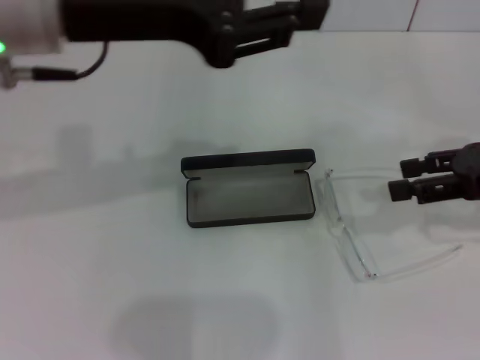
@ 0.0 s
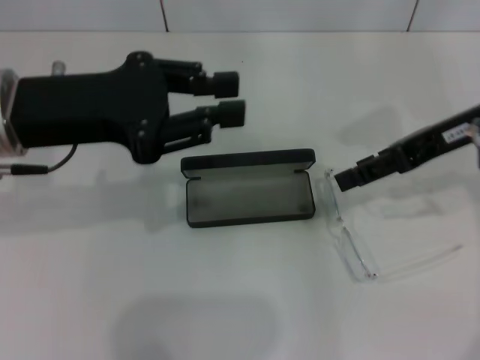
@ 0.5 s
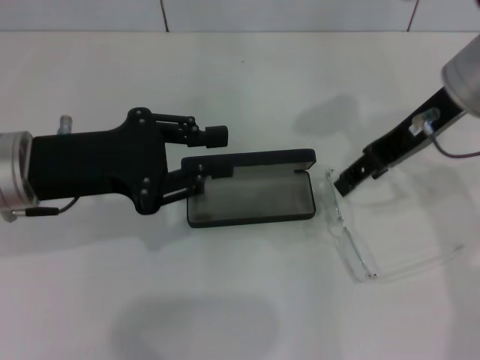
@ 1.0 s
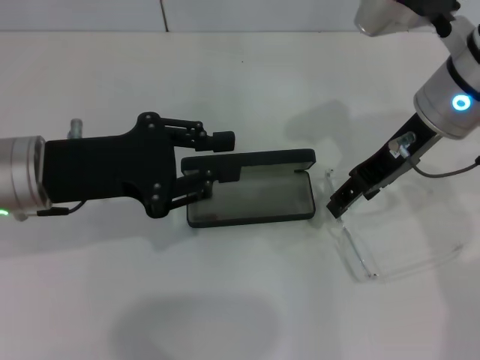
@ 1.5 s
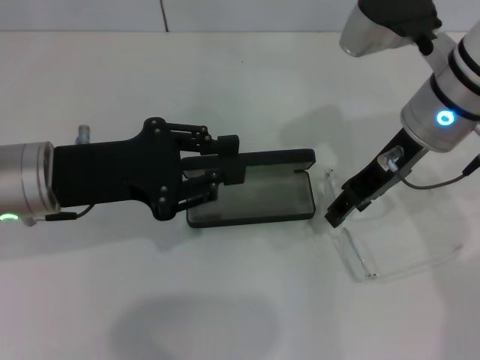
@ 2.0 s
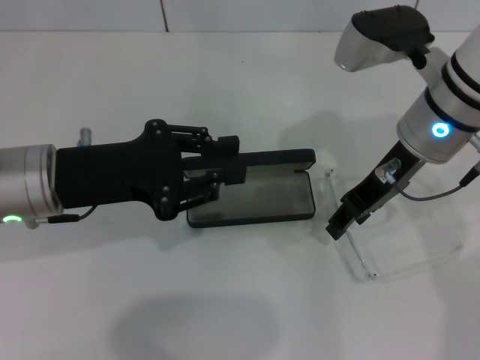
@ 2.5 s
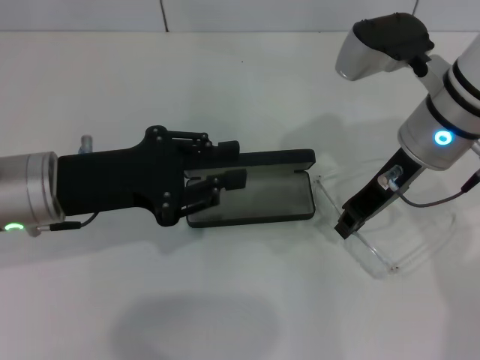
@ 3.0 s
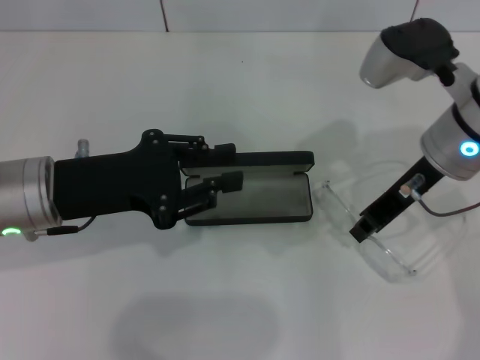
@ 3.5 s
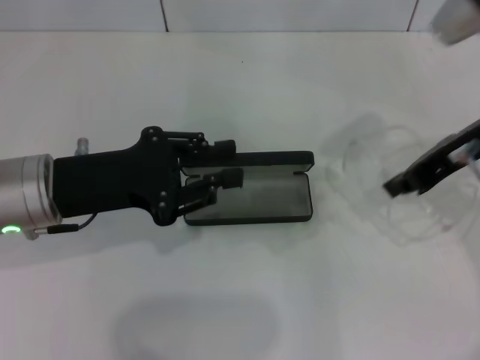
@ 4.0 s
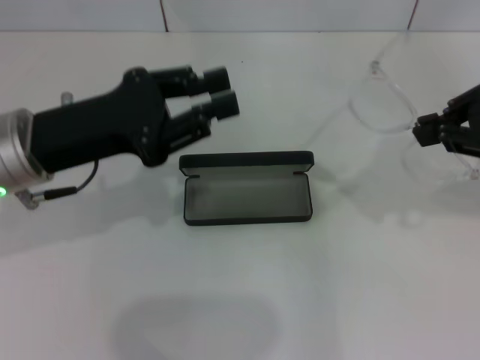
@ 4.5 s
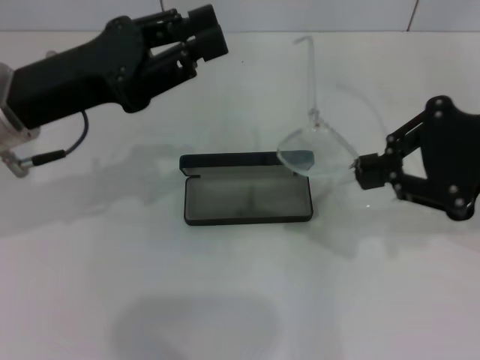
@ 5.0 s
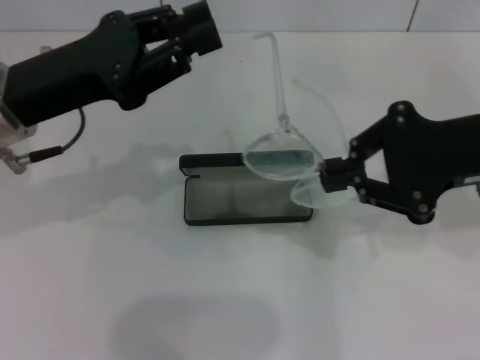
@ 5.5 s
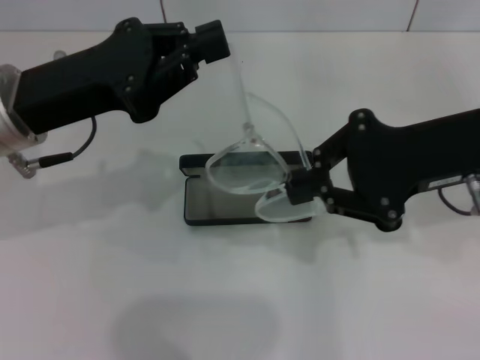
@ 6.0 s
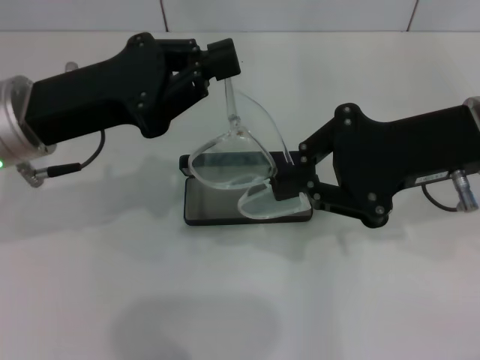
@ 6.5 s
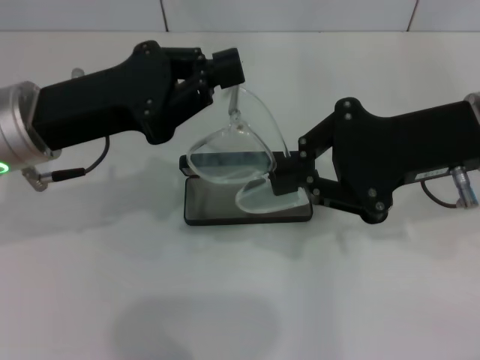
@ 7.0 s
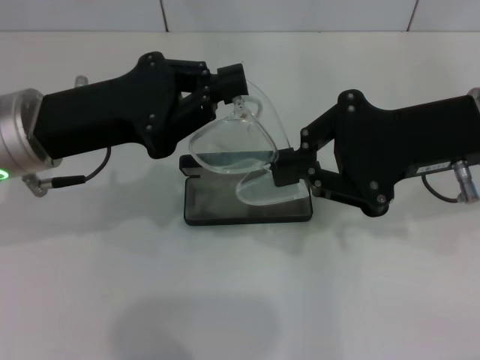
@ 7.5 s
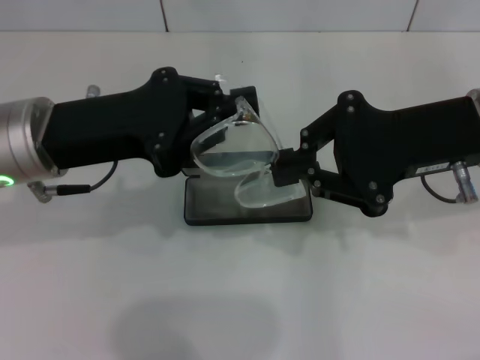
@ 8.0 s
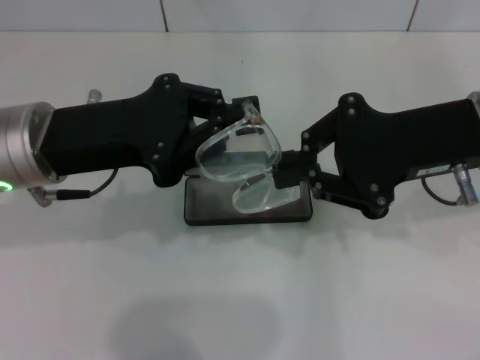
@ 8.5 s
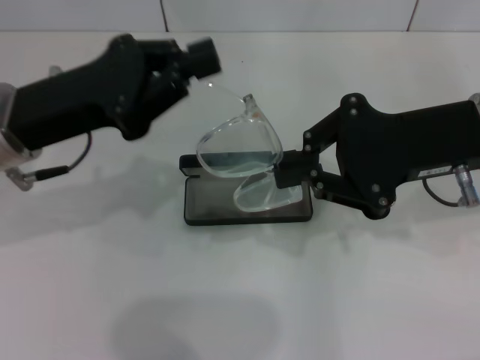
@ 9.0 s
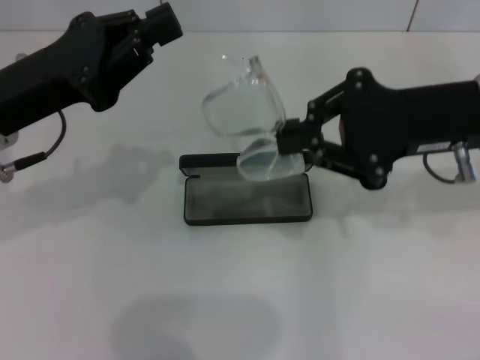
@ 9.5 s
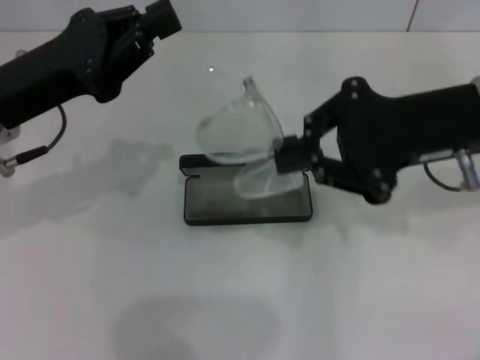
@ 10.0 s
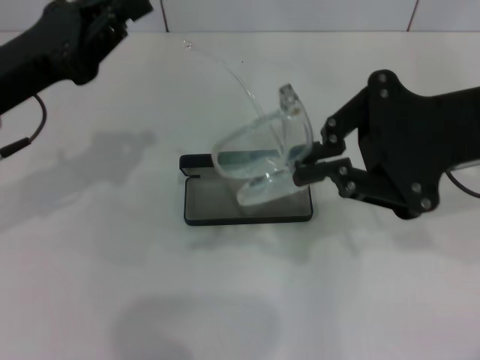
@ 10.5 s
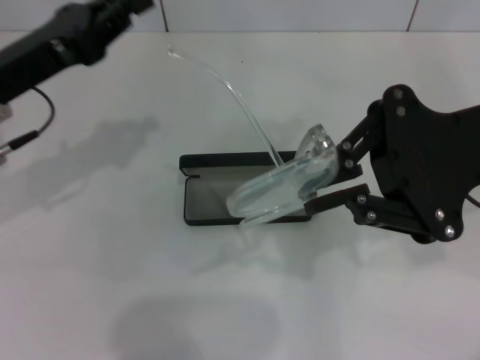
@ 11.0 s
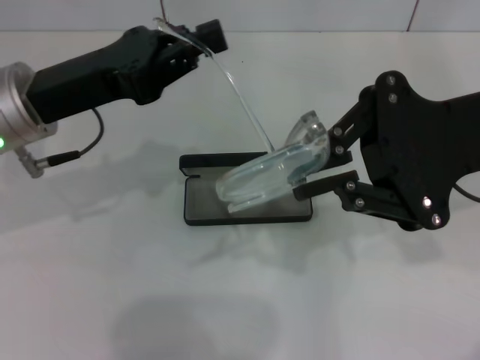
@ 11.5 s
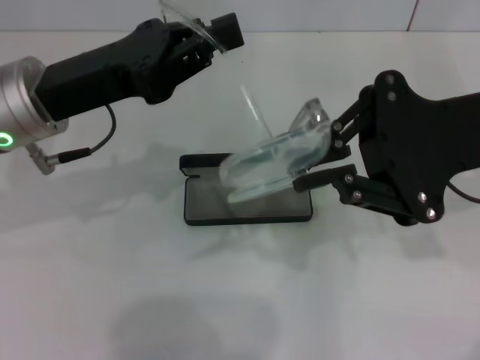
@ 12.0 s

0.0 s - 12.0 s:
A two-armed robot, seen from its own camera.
Step, 0.0 s - 3.0 s: Grab the eyeglass frame with your right hand.
0.0 s - 2.0 s: The right gripper shifts about 15 cm to the left, while the left gripper is displaced downward by approximately 15 cm.
2.0 s - 4.0 s: The right gripper shifts roughly 5 cm to the right, and closes.
4.0 s - 6.0 s: The left gripper heads upward, covering some 5 cm.

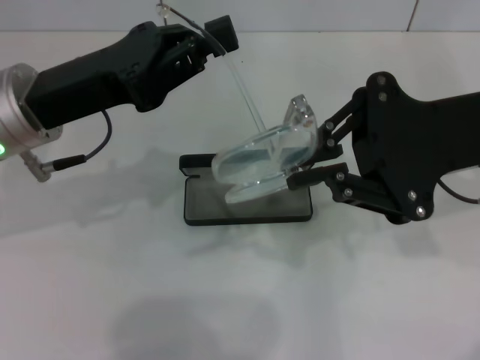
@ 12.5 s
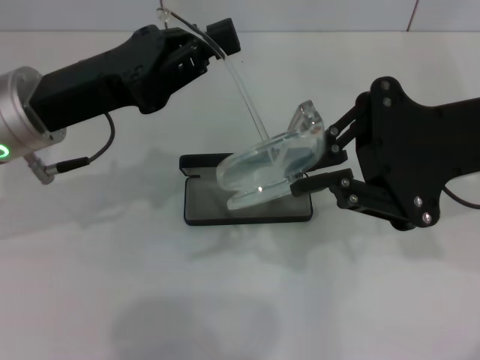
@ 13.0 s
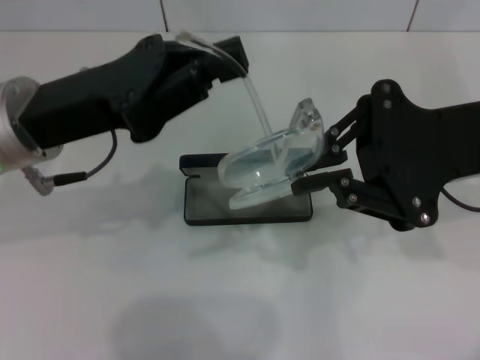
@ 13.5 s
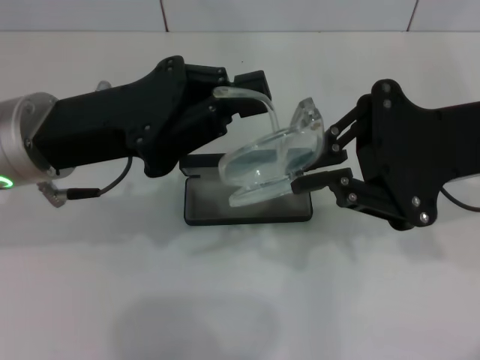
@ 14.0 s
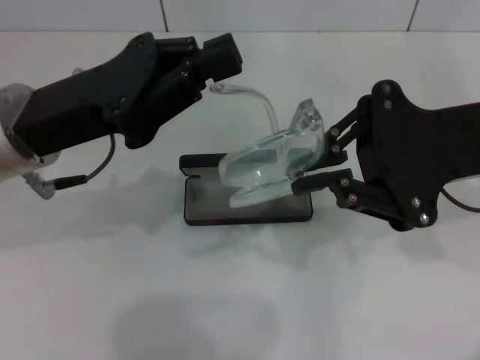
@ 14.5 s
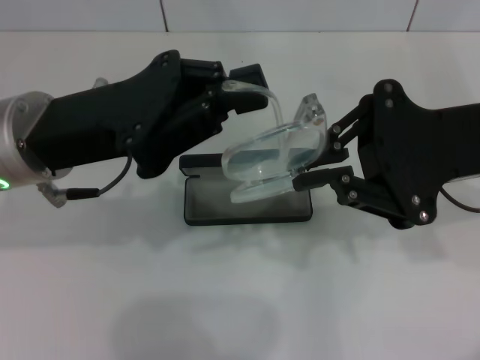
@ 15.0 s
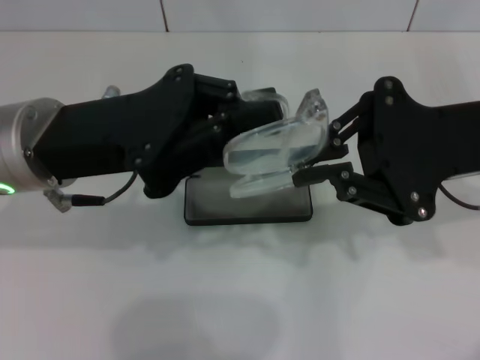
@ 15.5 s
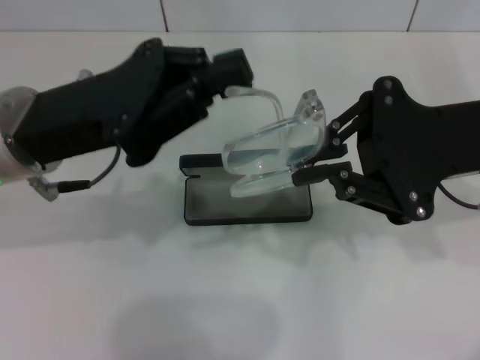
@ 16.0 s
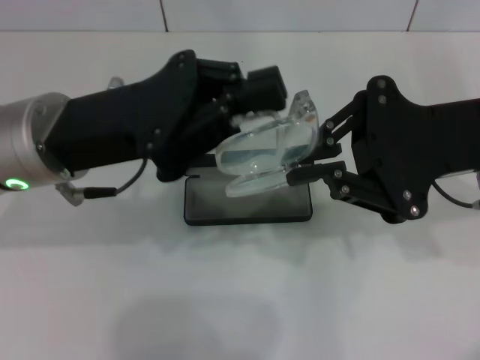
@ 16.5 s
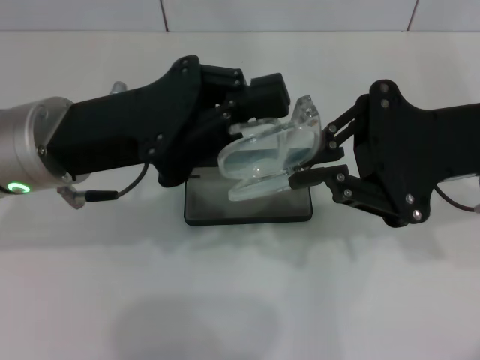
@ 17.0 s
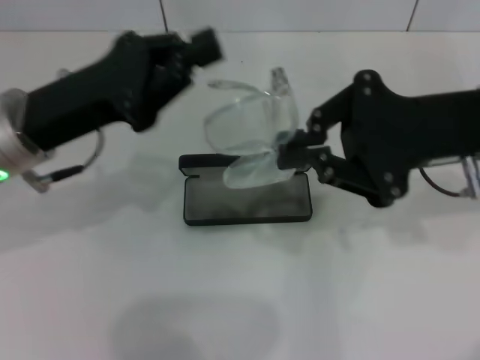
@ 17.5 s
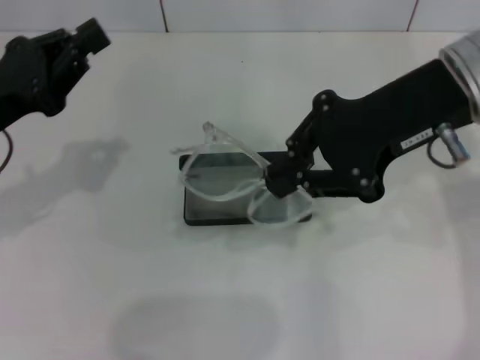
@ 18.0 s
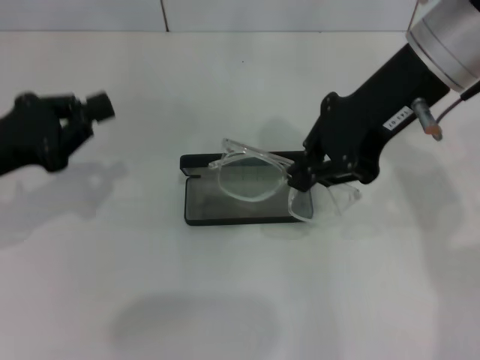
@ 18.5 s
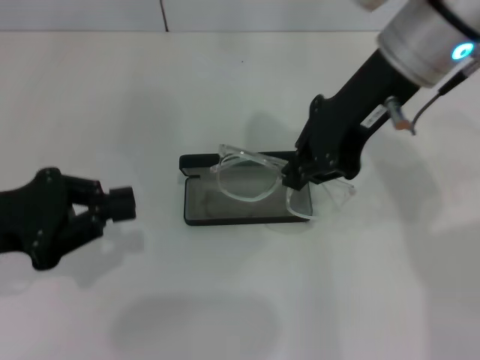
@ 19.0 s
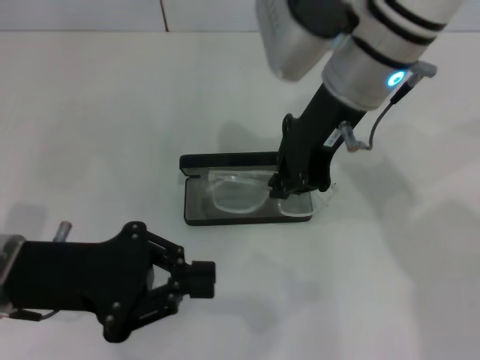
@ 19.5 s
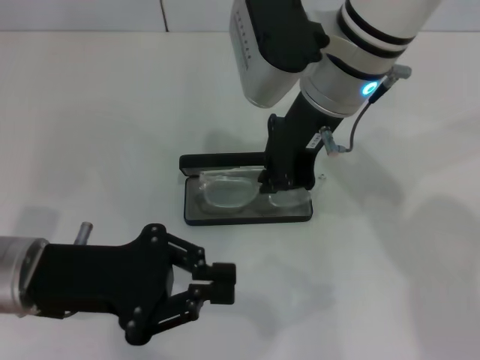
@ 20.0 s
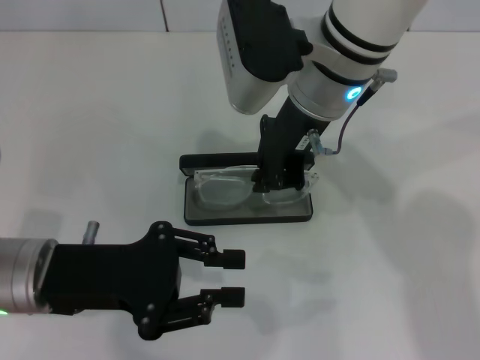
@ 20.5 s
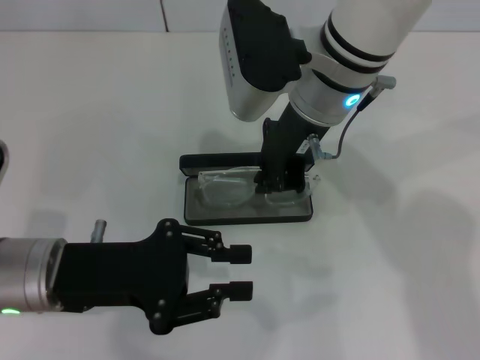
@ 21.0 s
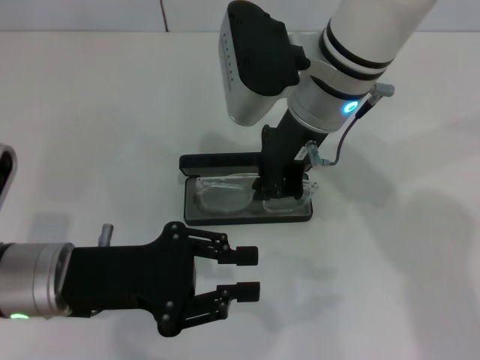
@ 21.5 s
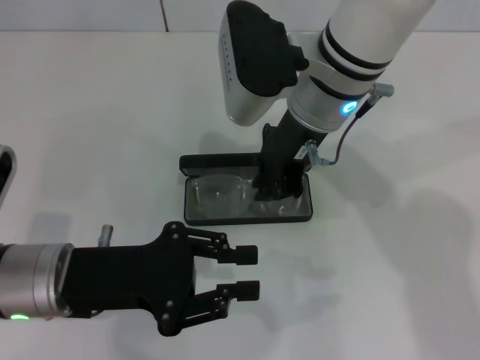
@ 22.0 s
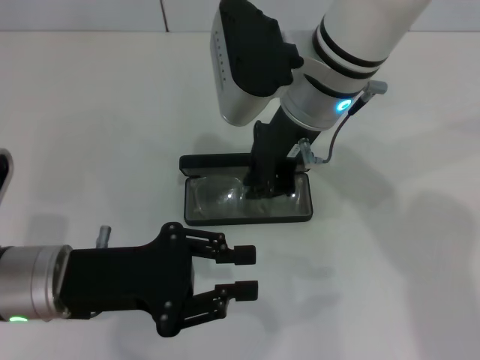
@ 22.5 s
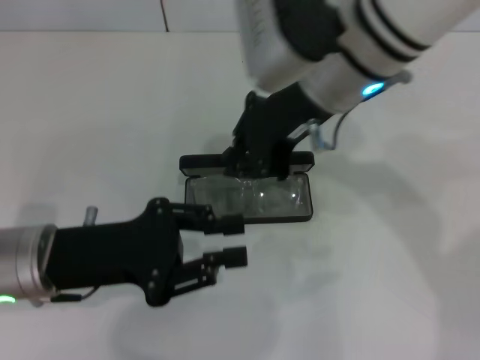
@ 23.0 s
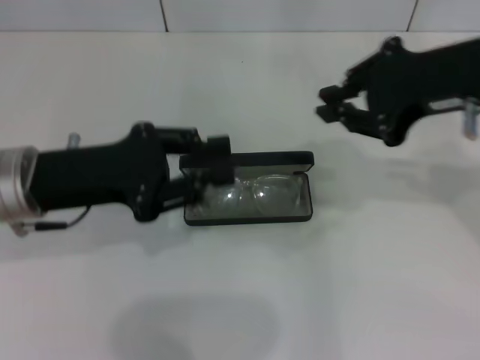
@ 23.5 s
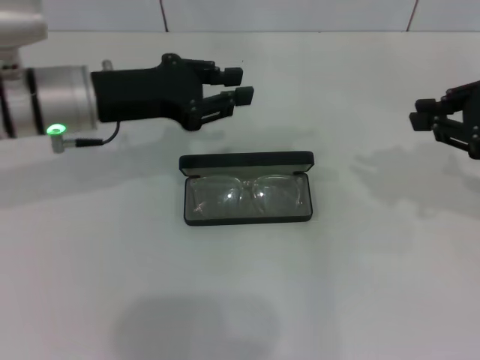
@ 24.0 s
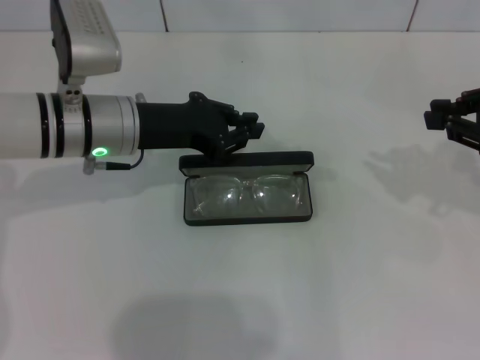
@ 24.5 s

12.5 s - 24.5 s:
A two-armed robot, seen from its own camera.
Step, 12.5 s - 15.5 s: Fold the frame with your left hand.
Step, 16.0 s - 22.5 s: Put the glasses into the case with your right hand.
12.5 s - 16.5 s: The grippers move only a little.
16.5 s - 18.5 s: The right gripper heads upward and to the left, covering approximately 10 cm. Meanwhile the left gripper moves to the left, roughly 15 cm.
18.5 s - 20.5 s: The right gripper goes roughly 10 cm to the left and downward, while the left gripper heads to the right, covering roughly 10 cm.
20.5 s - 22.5 s: The grippers make only small movements.
22.5 s - 24.5 s: The left gripper travels forward by about 15 cm. The right gripper moves to the right, approximately 25 cm.

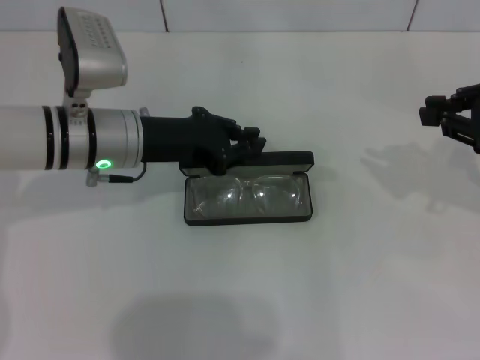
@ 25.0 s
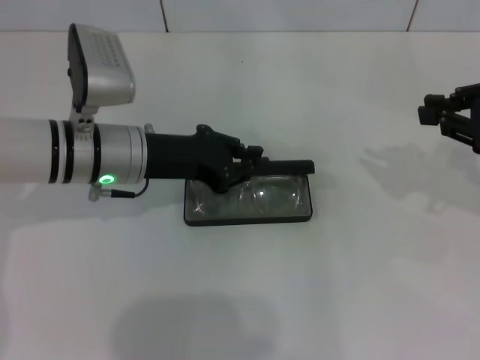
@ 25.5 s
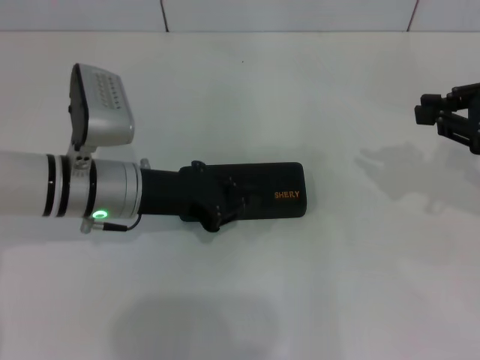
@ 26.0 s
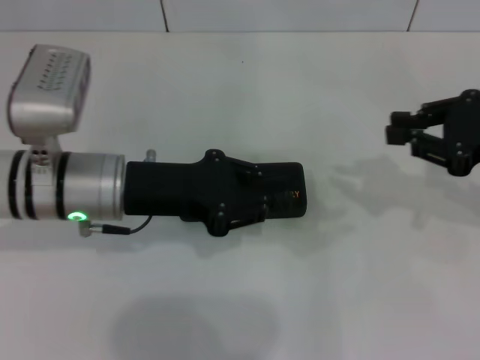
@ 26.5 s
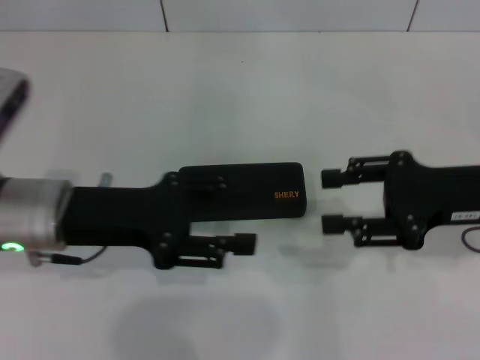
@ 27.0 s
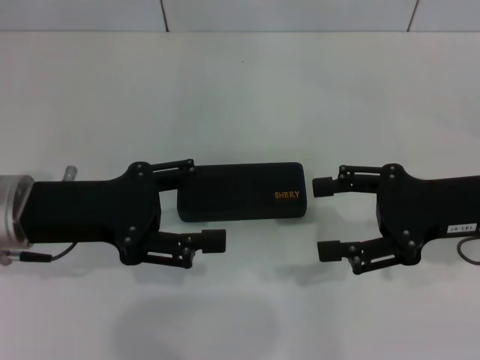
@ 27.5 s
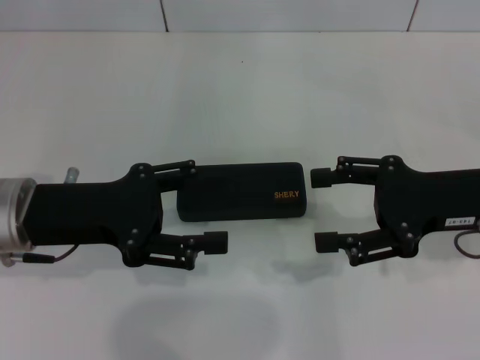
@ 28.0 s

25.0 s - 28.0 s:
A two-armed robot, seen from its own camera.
25.0 s - 26.5 s: The left gripper goes approximately 5 cm backward.
26.5 s - 28.0 s: The grippers both shift to the left by some 5 cm. The right gripper opens its fingers, while the left gripper opens.
